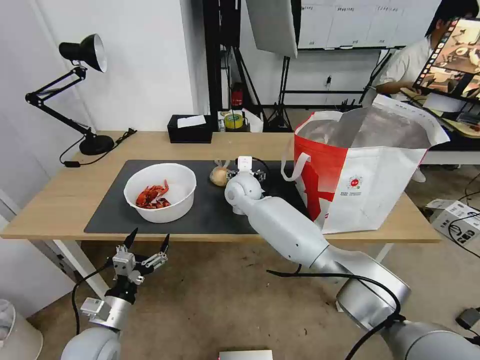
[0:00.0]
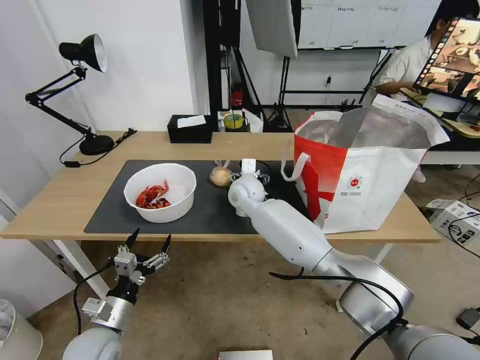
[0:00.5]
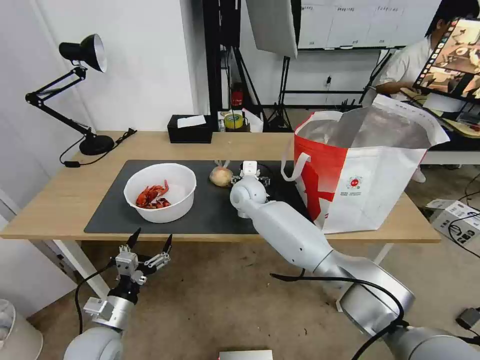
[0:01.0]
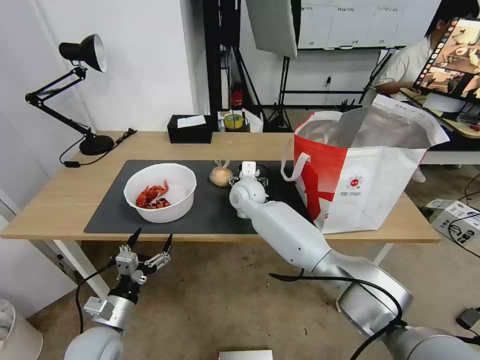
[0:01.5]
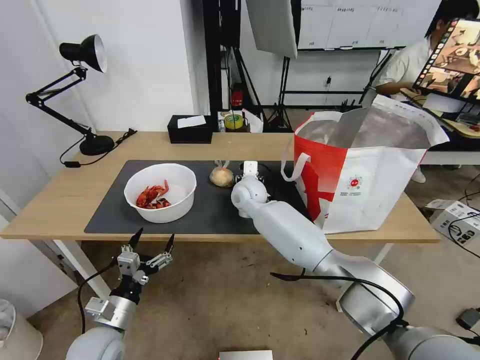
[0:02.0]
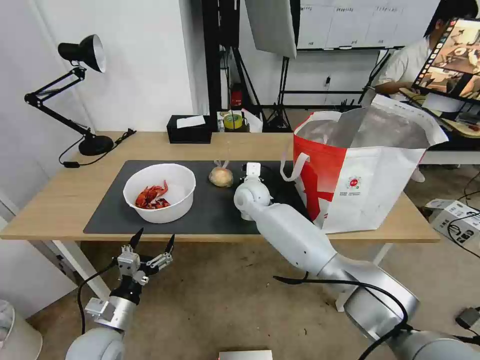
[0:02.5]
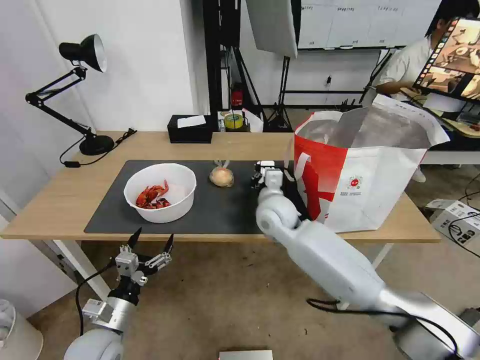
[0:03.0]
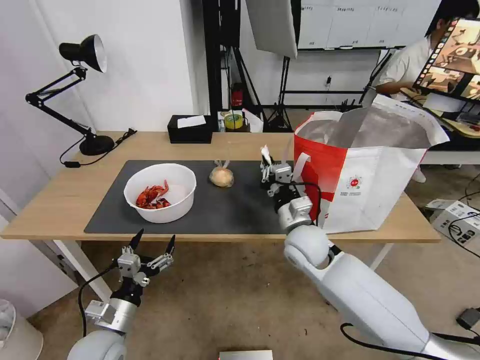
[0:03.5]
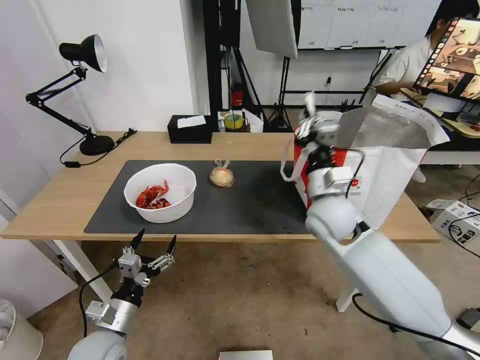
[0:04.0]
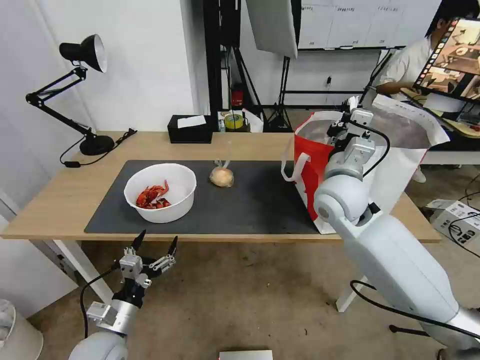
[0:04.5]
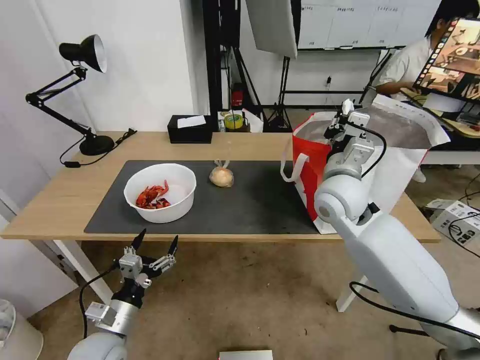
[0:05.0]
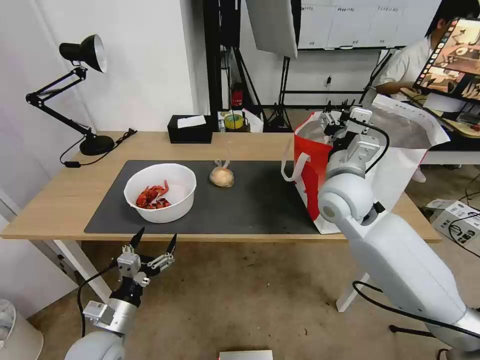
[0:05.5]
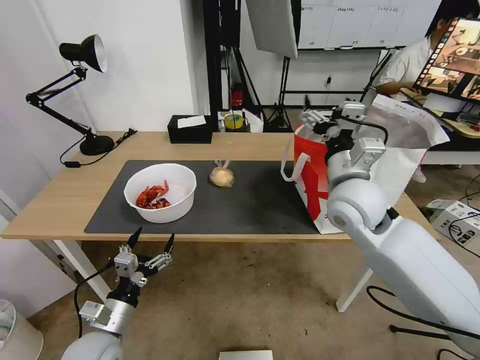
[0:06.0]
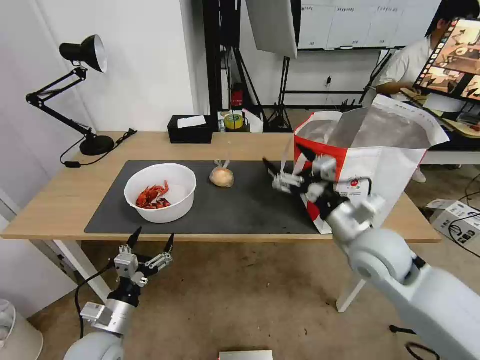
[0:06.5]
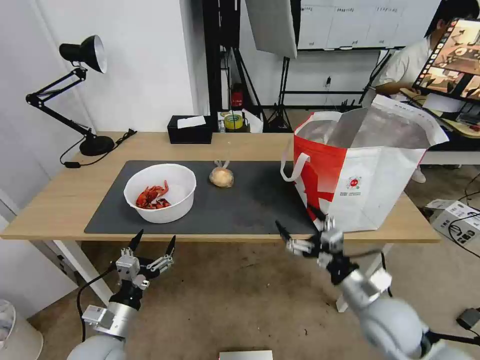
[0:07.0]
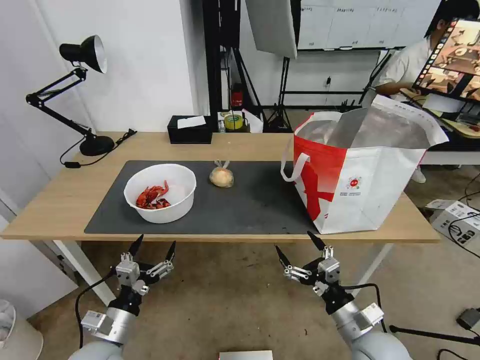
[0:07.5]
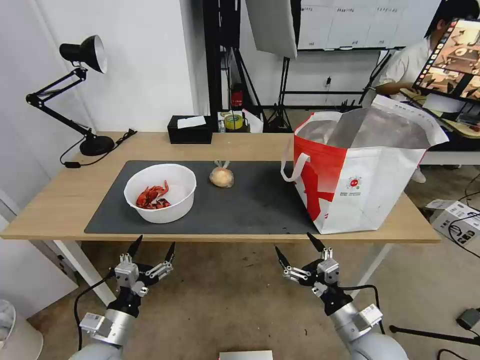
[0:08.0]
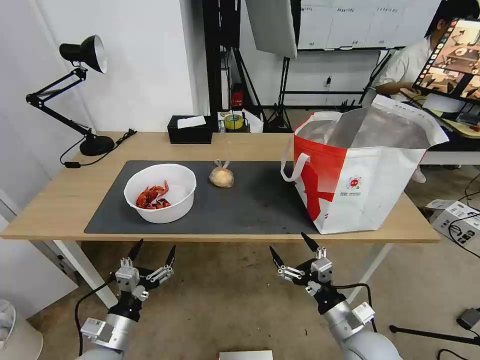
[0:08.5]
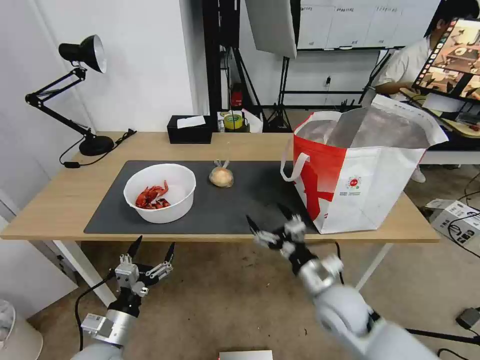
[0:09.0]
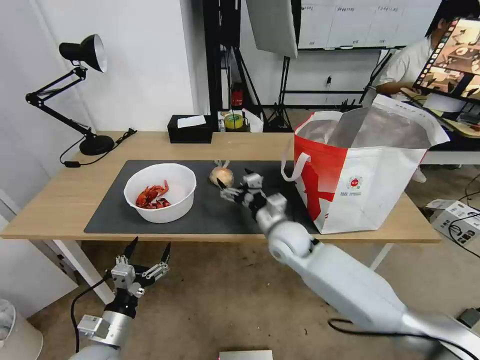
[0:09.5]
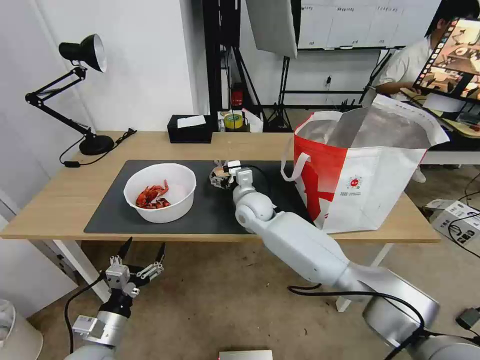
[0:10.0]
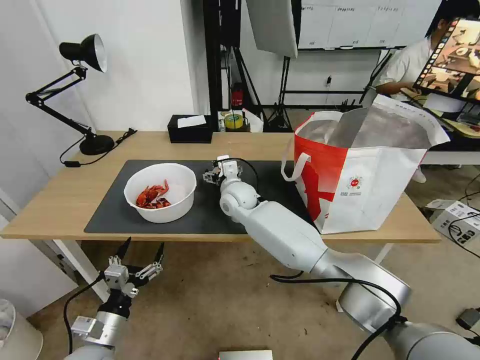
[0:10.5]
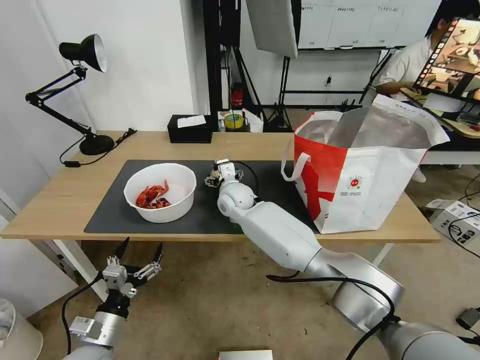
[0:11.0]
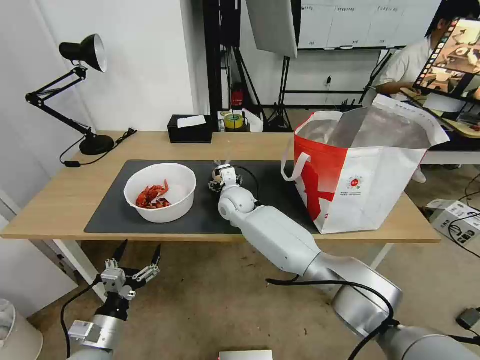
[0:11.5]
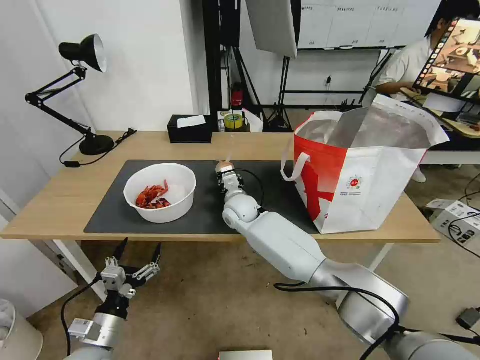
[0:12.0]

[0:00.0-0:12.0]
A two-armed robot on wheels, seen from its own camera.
Task of the whole recording: Pick up the trash from the table and place it into the takeout bag.
0.0 to 2.0 s: The right gripper closes its fingers.
2.0 to 4.0 s: The right gripper travels to the right, backward and upward by roughly 20 cm, and closes its fingers.
4.0 to 6.0 s: The right gripper is displaced upward by some 5 cm, and opens its fingers.
6.0 to 8.0 s: The right gripper travels downward and backward by approximately 30 cm.
8.0 to 10.0 s: The right gripper goes approximately 40 cm forward and to the left.
10.0 to 12.0 s: The right gripper closes.

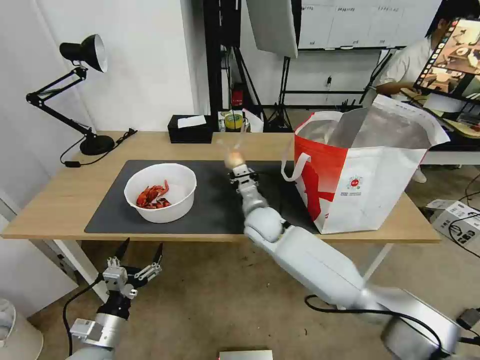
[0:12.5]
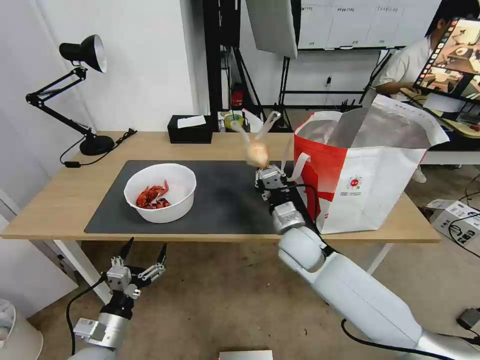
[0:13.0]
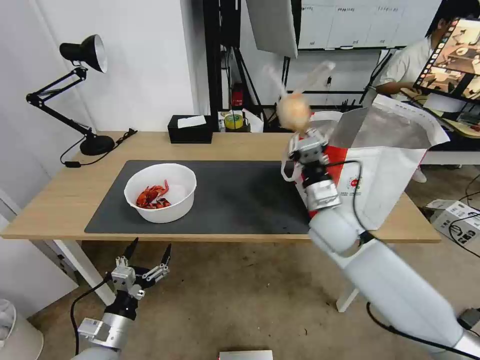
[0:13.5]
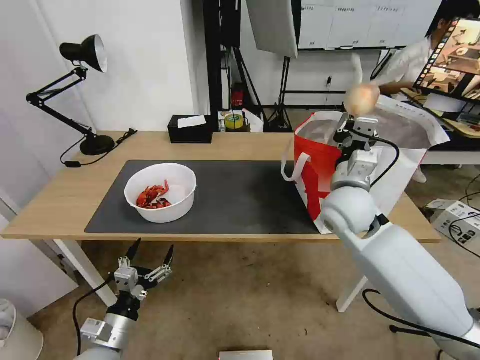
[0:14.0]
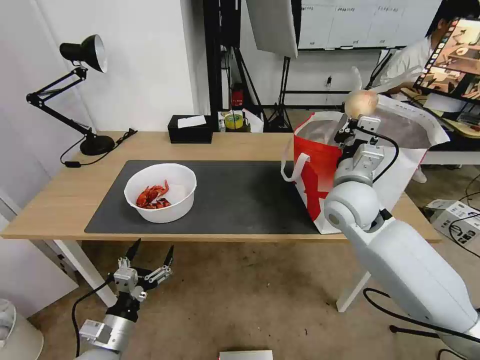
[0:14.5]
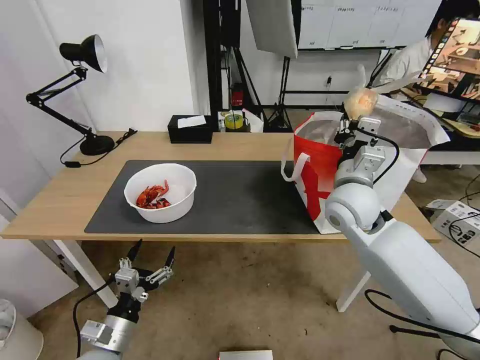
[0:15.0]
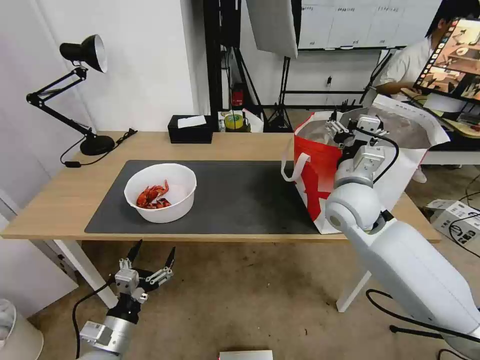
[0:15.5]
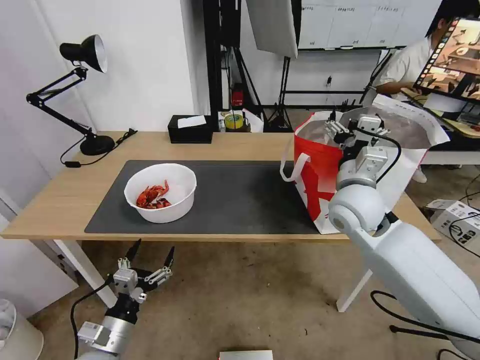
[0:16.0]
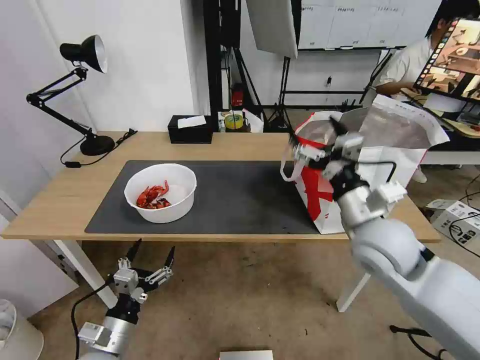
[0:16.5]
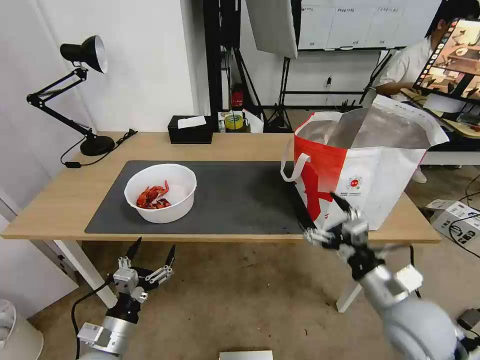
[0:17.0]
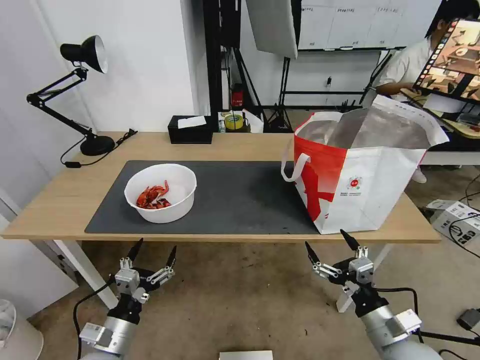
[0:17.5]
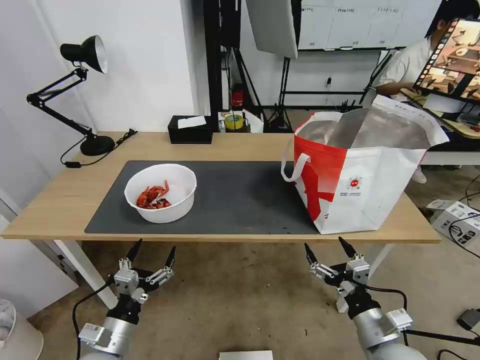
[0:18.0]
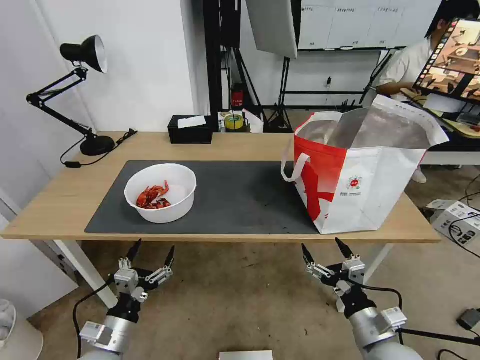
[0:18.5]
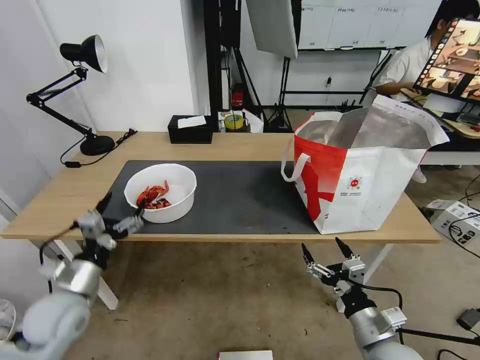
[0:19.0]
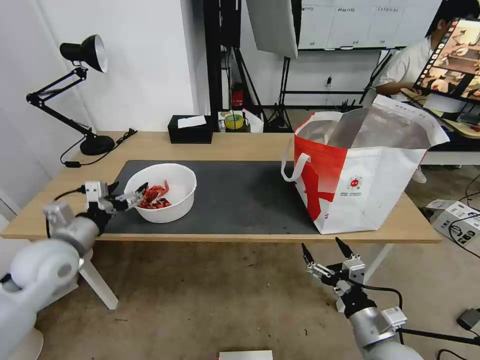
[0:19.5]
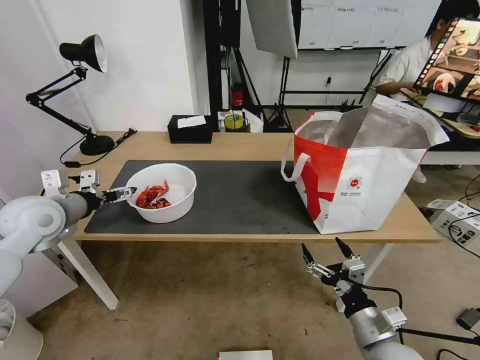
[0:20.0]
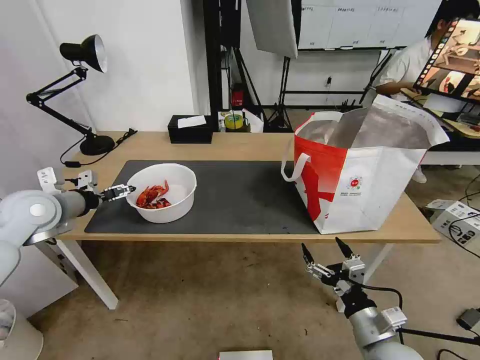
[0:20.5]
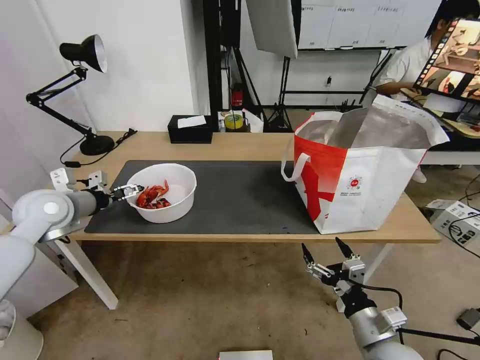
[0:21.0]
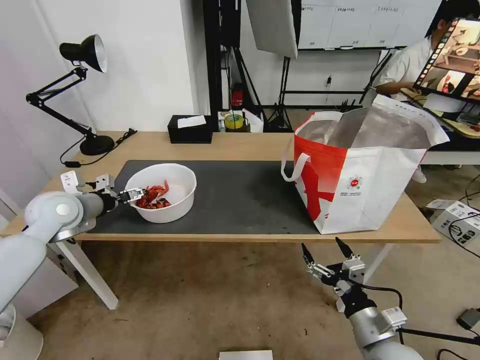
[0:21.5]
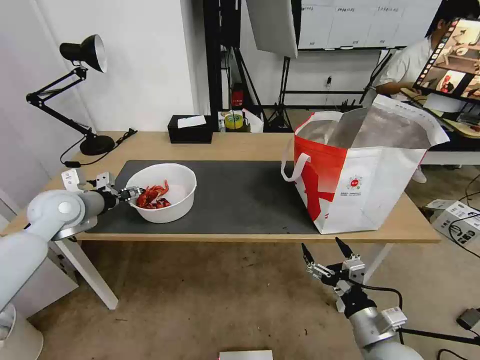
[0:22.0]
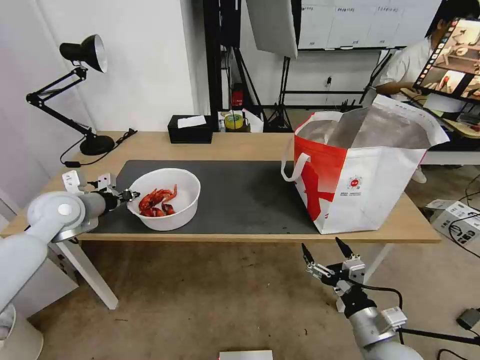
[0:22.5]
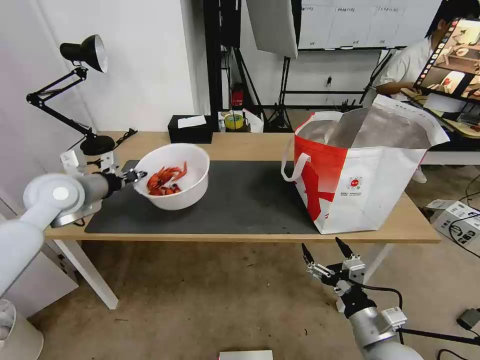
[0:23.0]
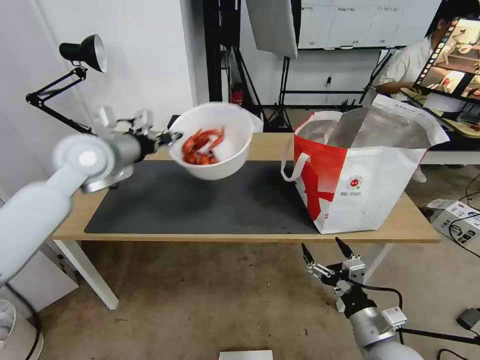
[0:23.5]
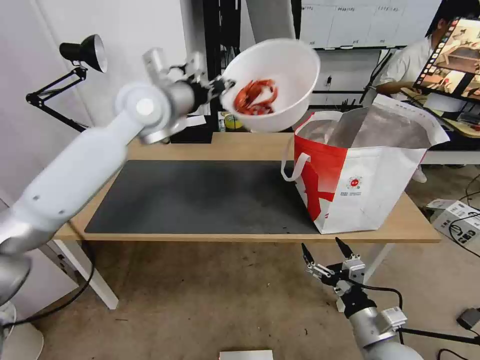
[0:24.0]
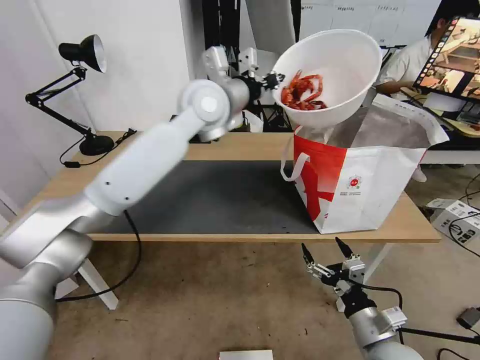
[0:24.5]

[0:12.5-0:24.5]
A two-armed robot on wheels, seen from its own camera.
Task of the whole recording: Pick up the trash from the table and place it into the takeout bag.
12.5 to 14.5 s: The right gripper is displaced to the right and upward by about 20 cm.
14.5 to 16.5 s: The right gripper is displaced backward by roughly 10 cm, and opens.
16.5 to 18.5 s: The right gripper travels downward and backward by about 25 cm.
18.5 to 20.5 s: The left gripper travels upward, forward and to the left by some 35 cm.
20.5 to 22.5 s: The left gripper closes its fingers.
22.5 to 24.5 s: The left gripper is displaced to the right and upward by roughly 35 cm.

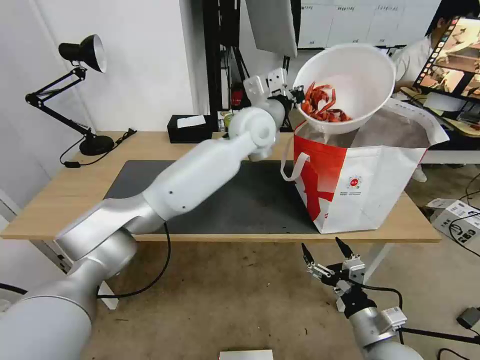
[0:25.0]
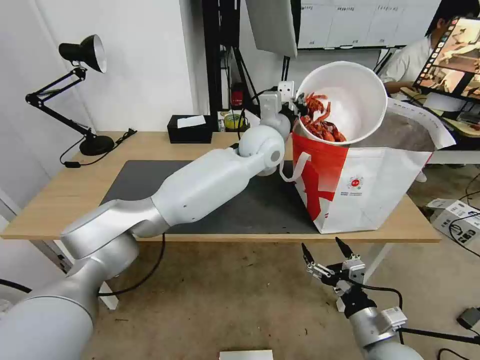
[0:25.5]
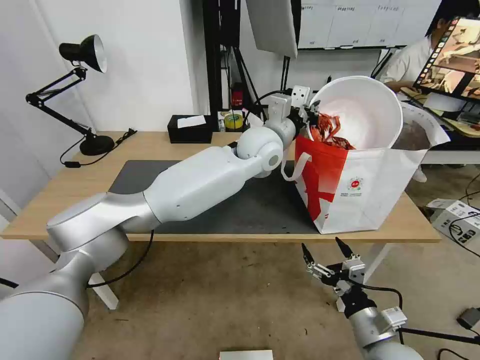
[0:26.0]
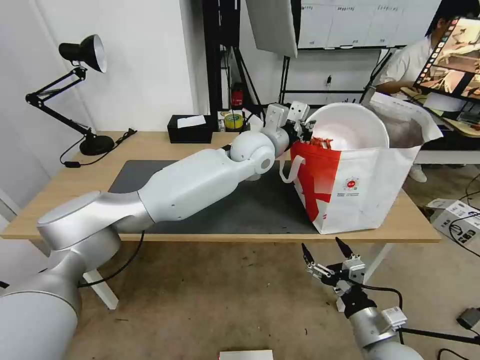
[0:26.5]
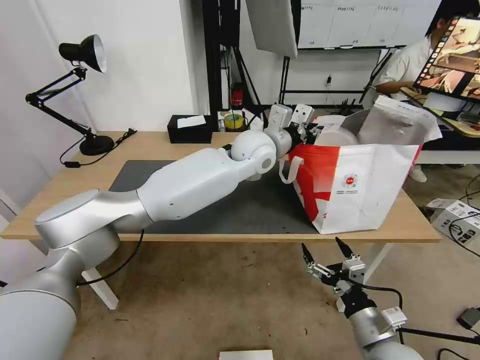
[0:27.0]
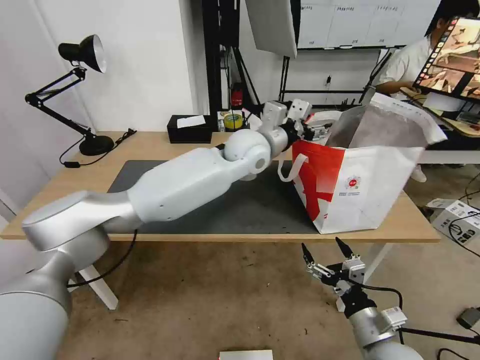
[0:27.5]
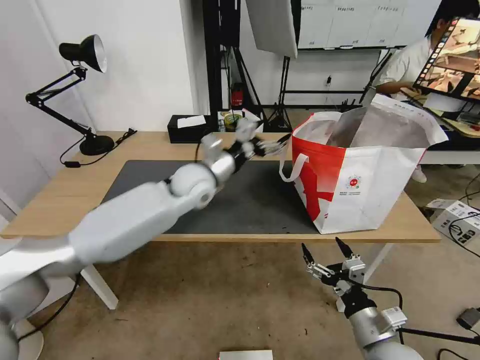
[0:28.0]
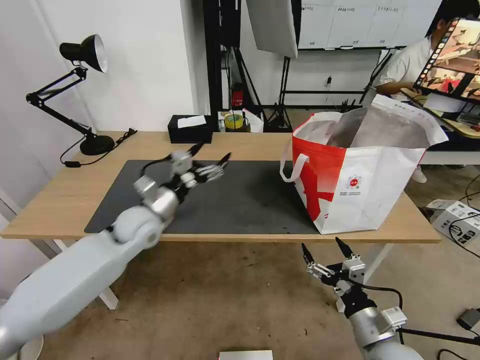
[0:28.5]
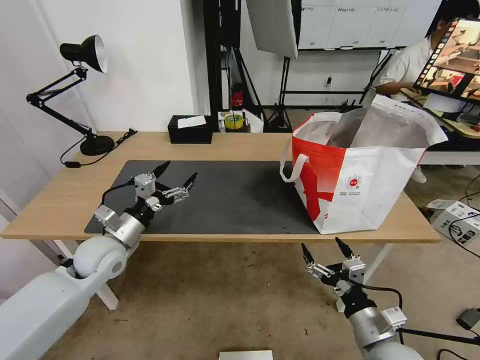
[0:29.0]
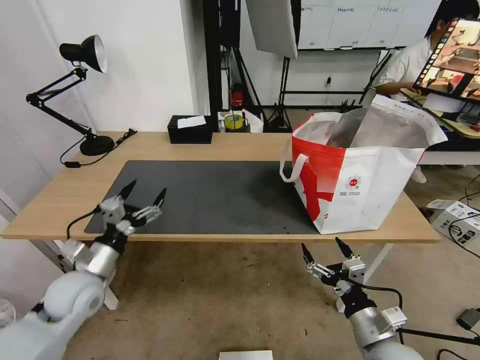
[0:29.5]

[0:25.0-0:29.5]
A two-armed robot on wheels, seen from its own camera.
Task of the whole recording: Pick up the trash from the table and place it into the takeout bag.
27.0 to 29.5 s: The left gripper is displaced to the left, backward and downward by roughly 50 cm, and opens its fingers.
